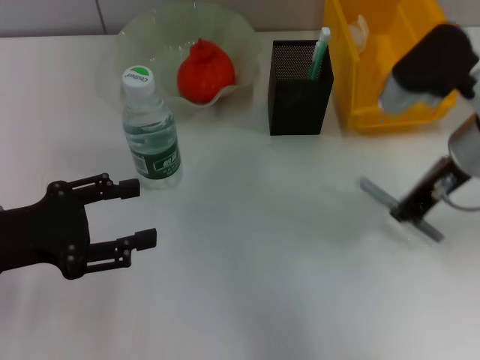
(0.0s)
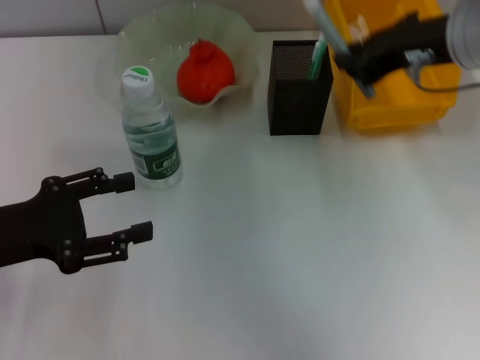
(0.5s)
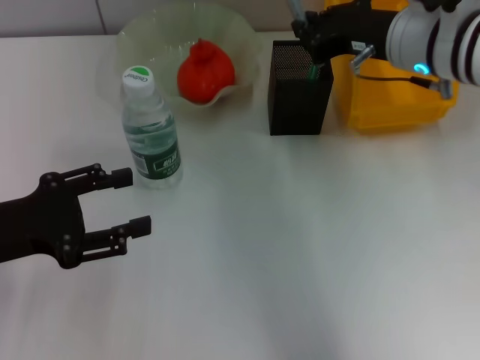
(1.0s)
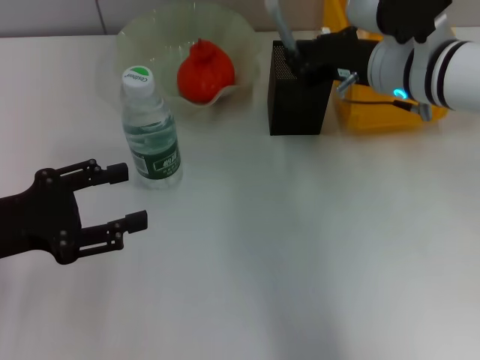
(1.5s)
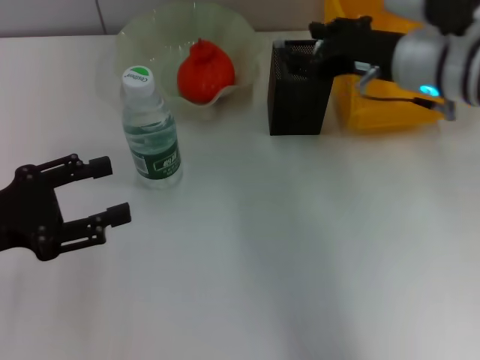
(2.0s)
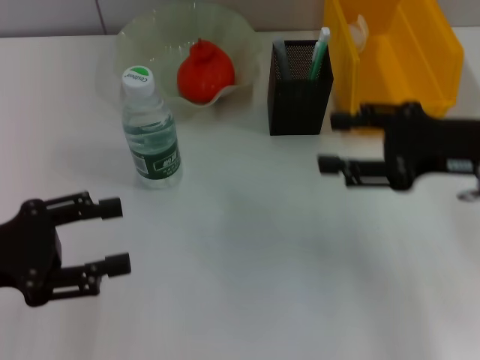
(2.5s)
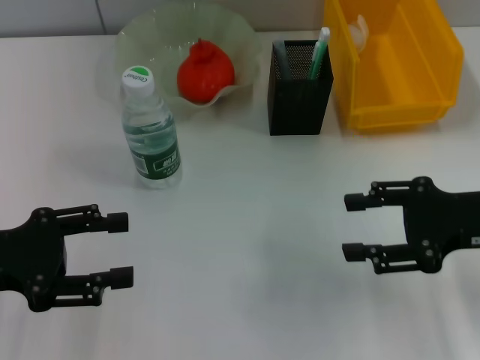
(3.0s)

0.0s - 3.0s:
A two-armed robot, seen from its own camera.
Step, 0.0s - 1.5s: Place the gray glue into the pen holder with the right hand.
0.0s - 1.5s: The right gripper shifts roughly 5 cm forward, and goes upward and returns, some 5 cm each way.
1.5s - 3.0s: The right gripper goes some 15 cm backward and to the right, and opens its fingers.
